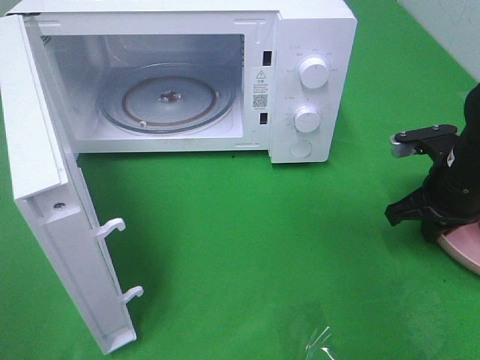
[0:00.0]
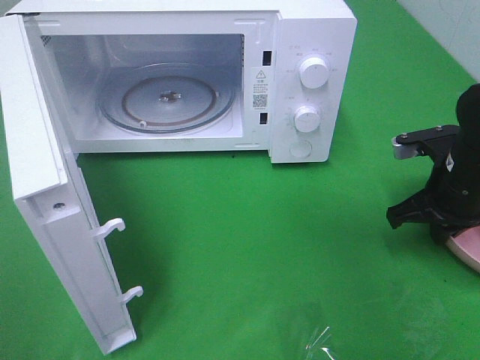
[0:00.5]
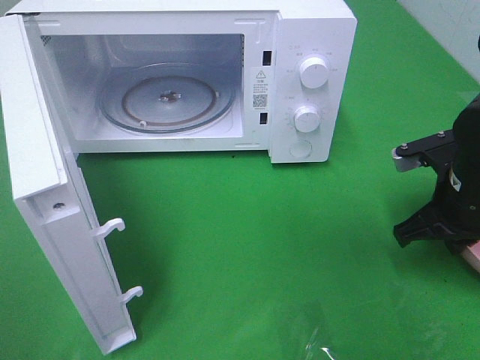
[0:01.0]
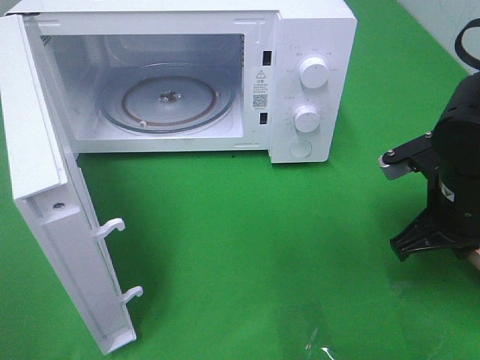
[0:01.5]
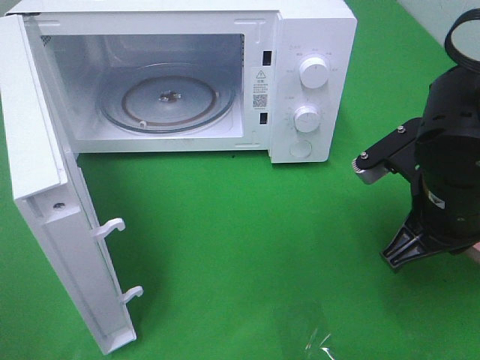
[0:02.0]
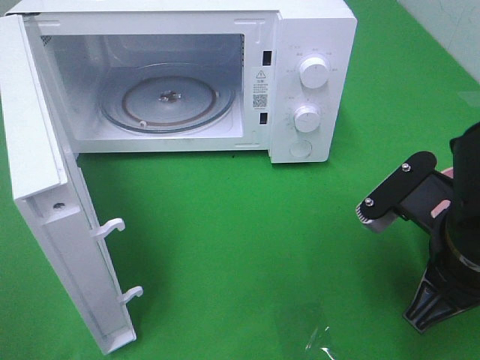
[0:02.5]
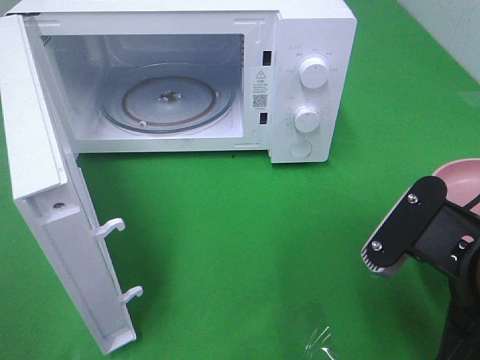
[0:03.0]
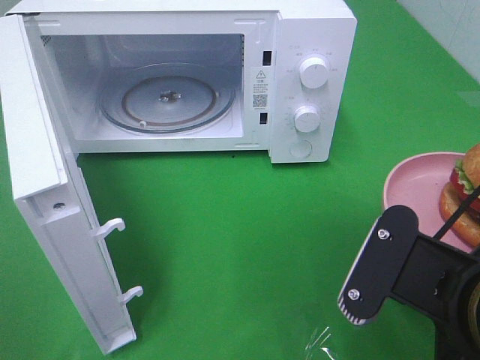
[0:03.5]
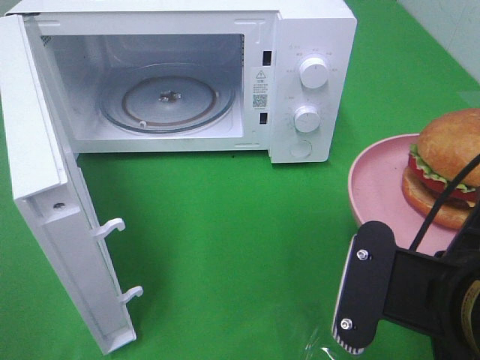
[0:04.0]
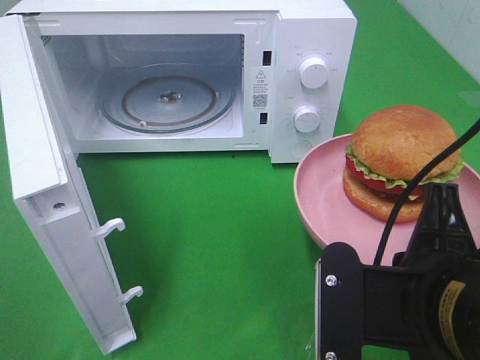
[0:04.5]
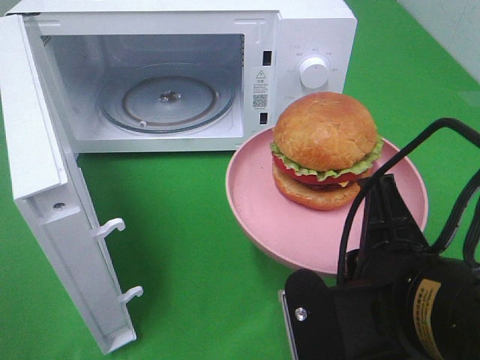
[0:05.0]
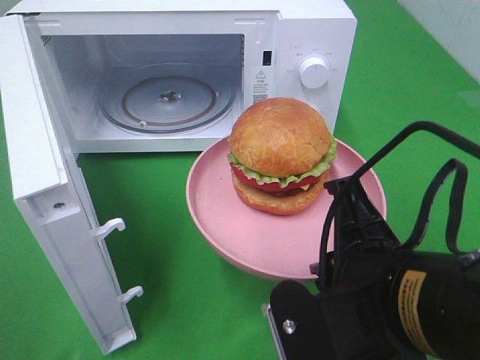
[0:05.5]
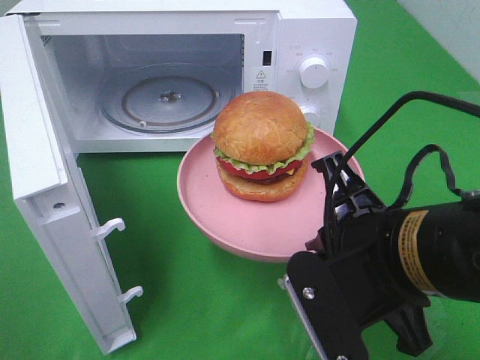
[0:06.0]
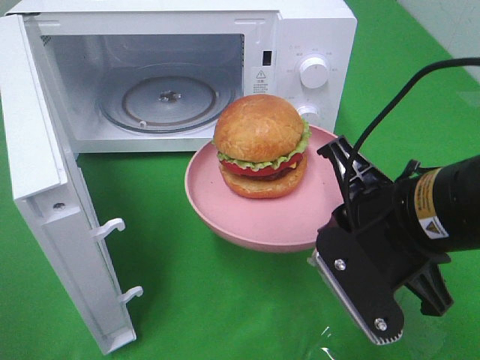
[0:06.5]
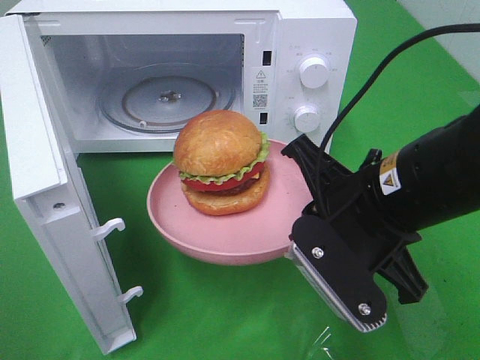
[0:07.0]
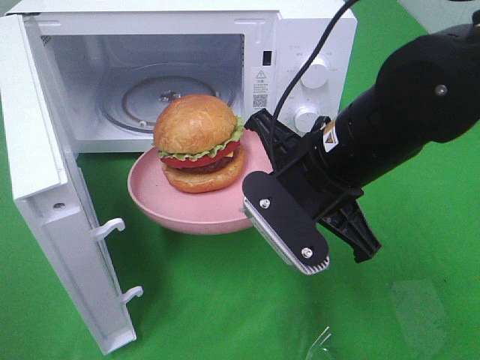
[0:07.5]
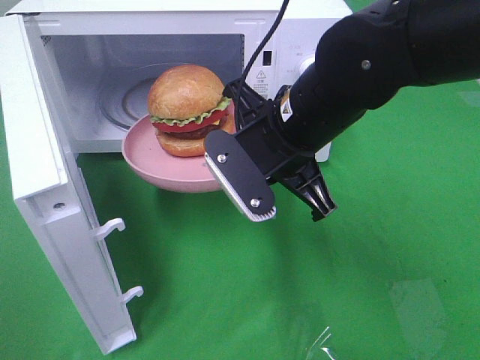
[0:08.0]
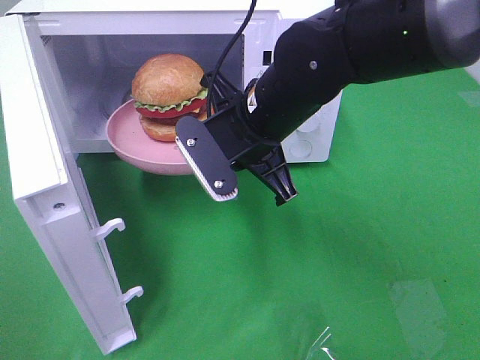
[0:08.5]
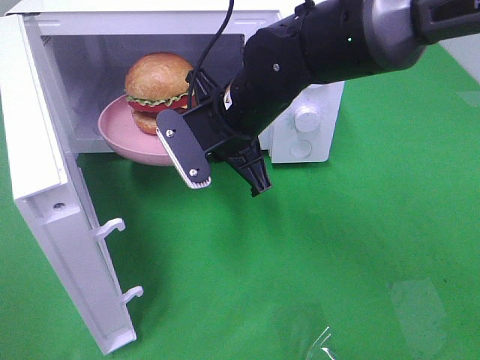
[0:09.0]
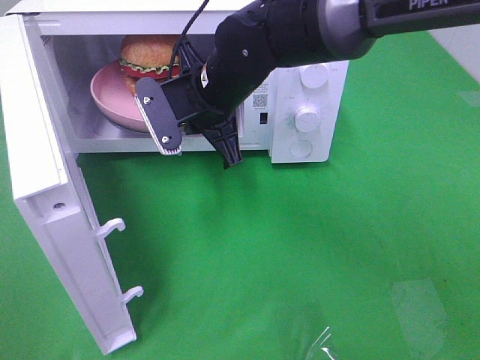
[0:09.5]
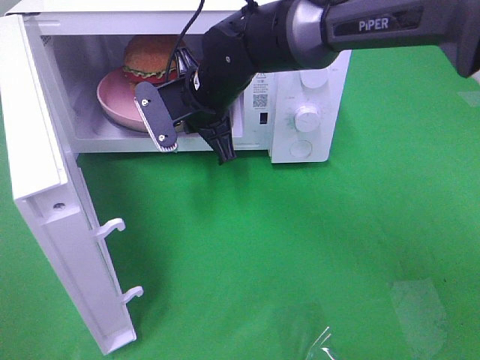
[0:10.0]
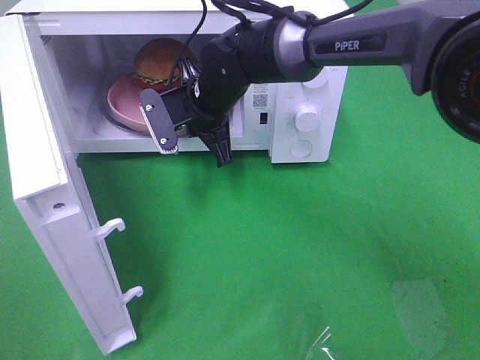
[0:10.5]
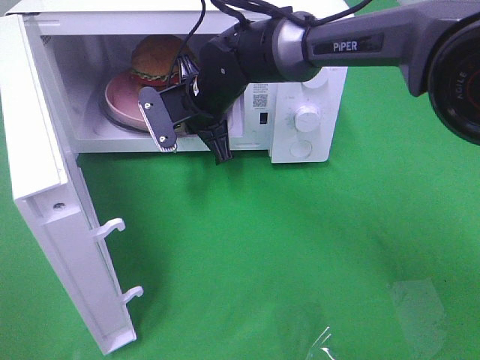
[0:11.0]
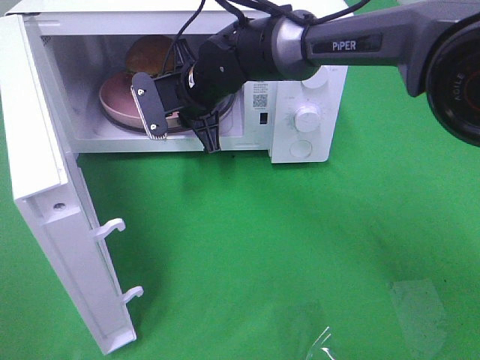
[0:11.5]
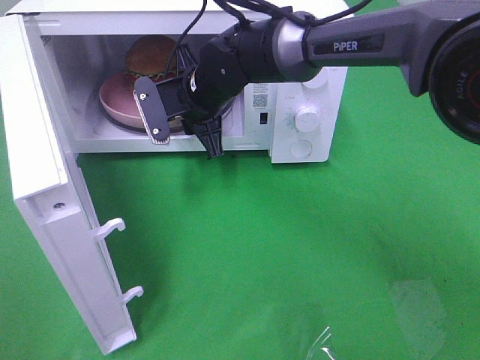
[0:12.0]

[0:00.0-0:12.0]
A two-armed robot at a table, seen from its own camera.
Task of the whole recording: Heat the burger.
0.0 to 2.0 s: The right gripper moves backward, to the left and upward, about 15 cm.
2.0 to 4.0 s: The right gripper heads backward, covering about 15 cm.
4.0 to 6.0 s: The right gripper changes place by some 5 cm.
6.0 to 8.0 s: The right gripper heads forward and to the left, covering approximately 15 cm.
8.0 to 10.0 s: The right gripper heads forward and to the left, covering approximately 15 cm.
10.0 to 12.0 s: The grippers make only small movements.

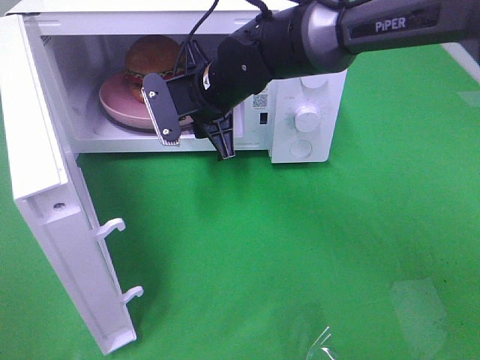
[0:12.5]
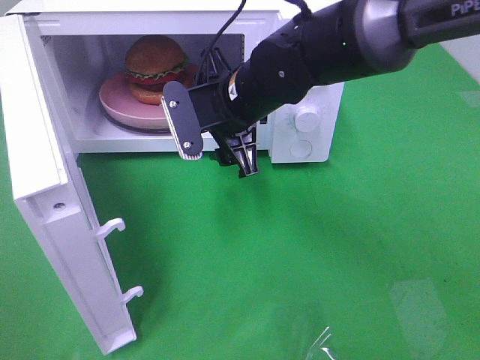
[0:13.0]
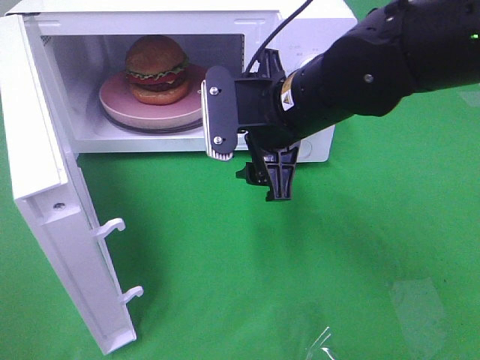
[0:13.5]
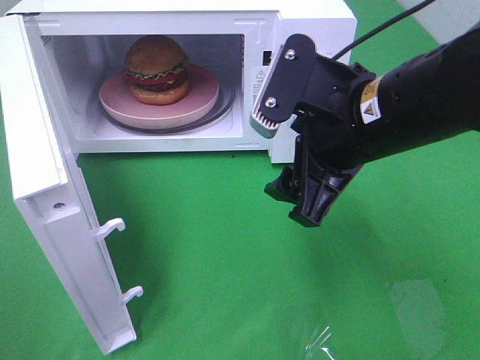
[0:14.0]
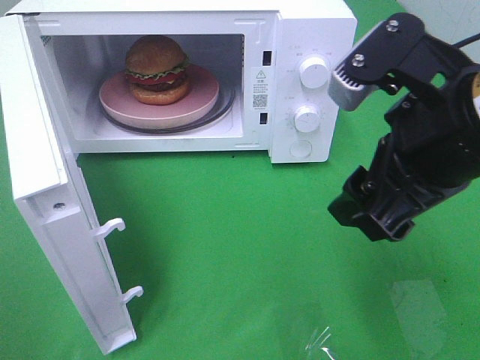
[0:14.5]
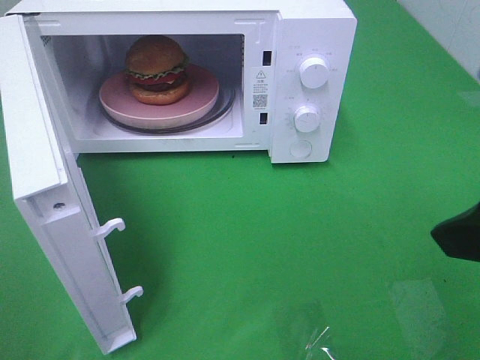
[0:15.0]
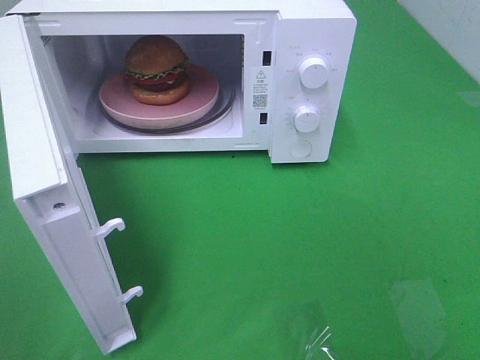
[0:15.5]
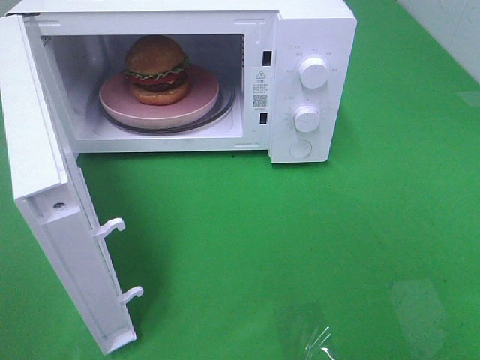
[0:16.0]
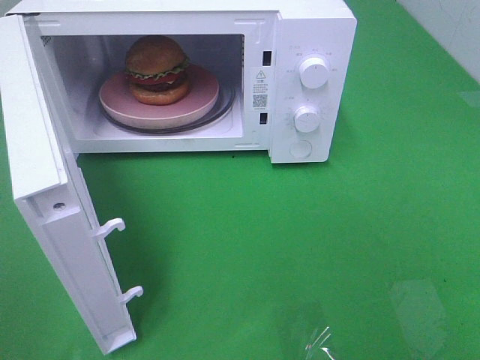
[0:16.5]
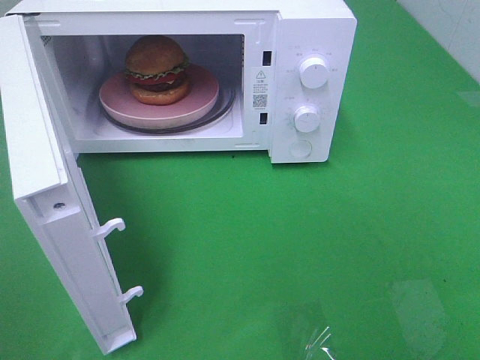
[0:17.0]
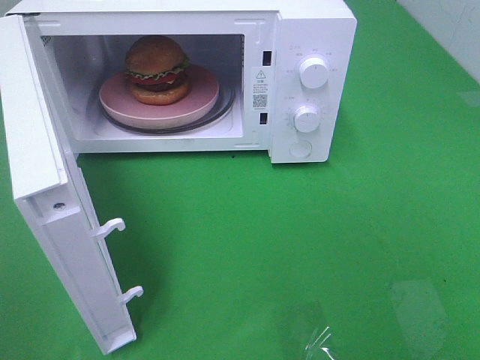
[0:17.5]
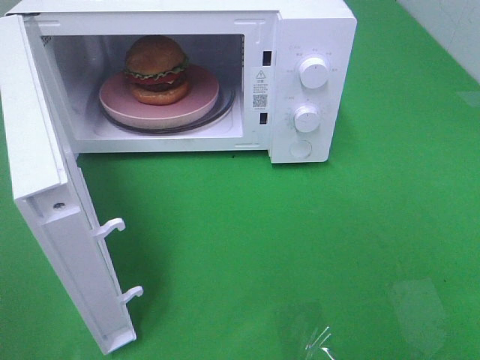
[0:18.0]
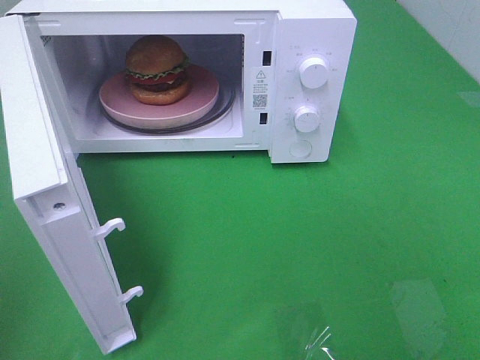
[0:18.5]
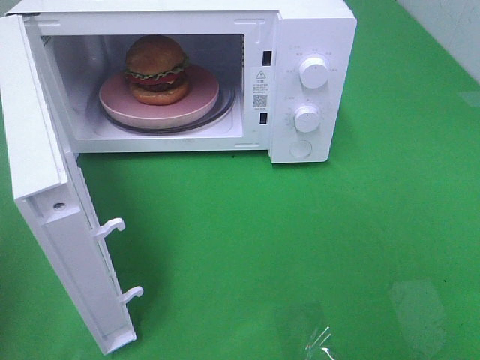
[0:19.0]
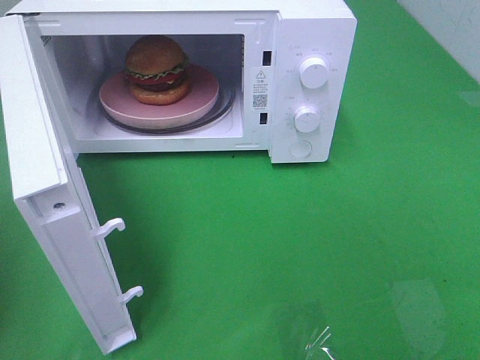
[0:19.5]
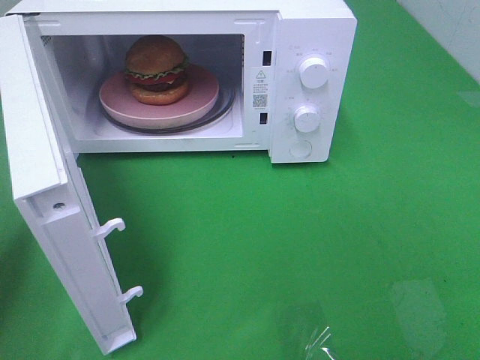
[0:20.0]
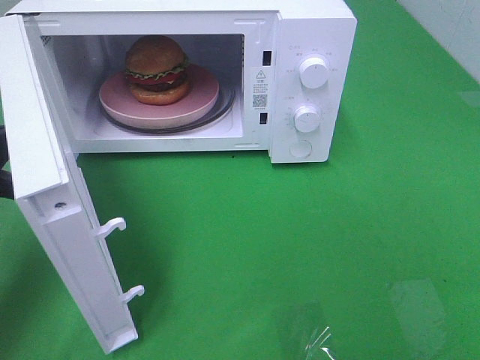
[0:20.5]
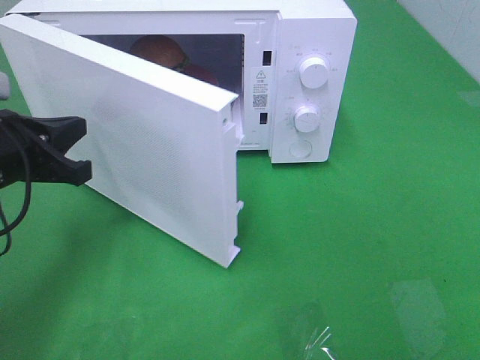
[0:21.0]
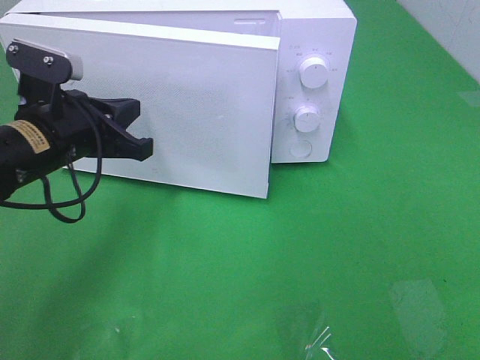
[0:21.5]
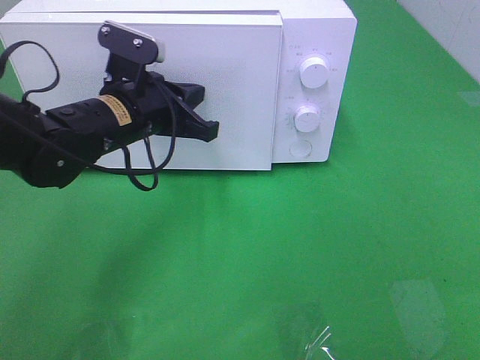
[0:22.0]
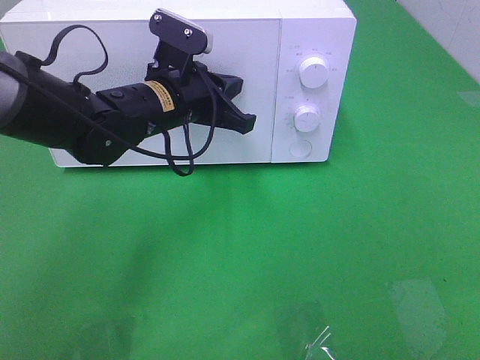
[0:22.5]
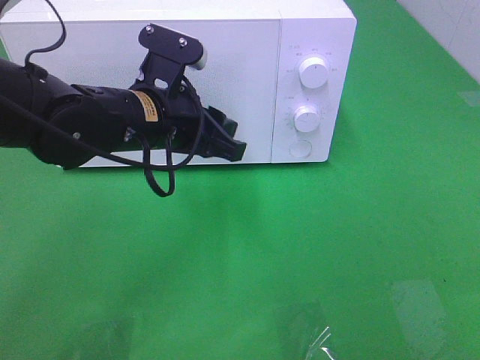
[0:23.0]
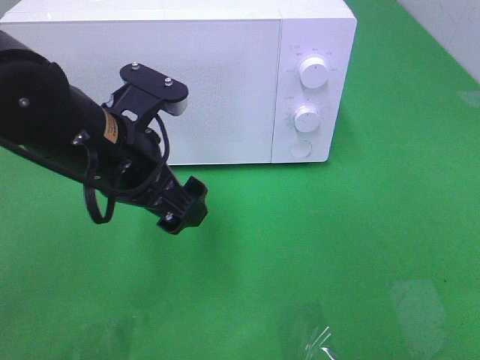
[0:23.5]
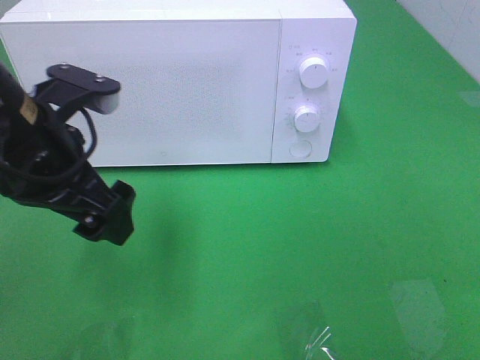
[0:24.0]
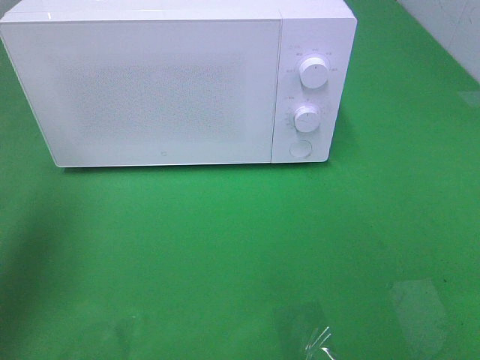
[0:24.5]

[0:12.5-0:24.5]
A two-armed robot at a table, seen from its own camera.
Task of the whole recording: Heat the burger.
Step, 13.5 to 23.0 s: Left hand: close the microwave door.
12.5 to 14.5 s: The right gripper travels backward, to the right and upward by about 30 cm.
14.5 to 16.5 s: The right gripper heads backward and to the right, covering roughly 25 cm.
18.5 to 20.5 s: The left gripper goes some 25 cm forward and downward.
20.5 to 22.5 s: The left gripper travels to the right and forward by about 25 cm.
22.5 to 24.5 s: The left gripper is displaced to the left, backward and upward by roughly 30 cm, and opens.

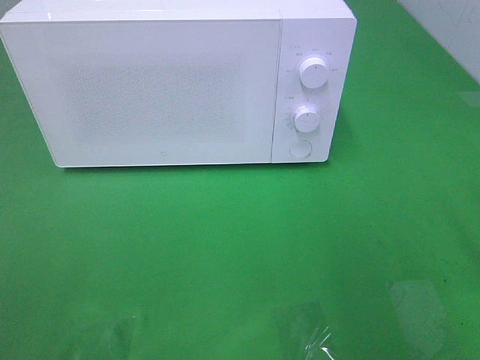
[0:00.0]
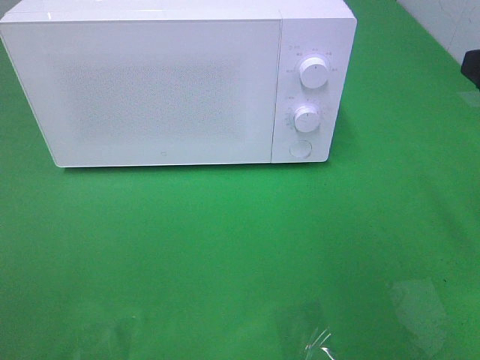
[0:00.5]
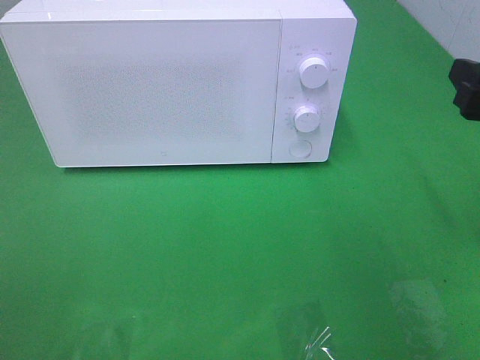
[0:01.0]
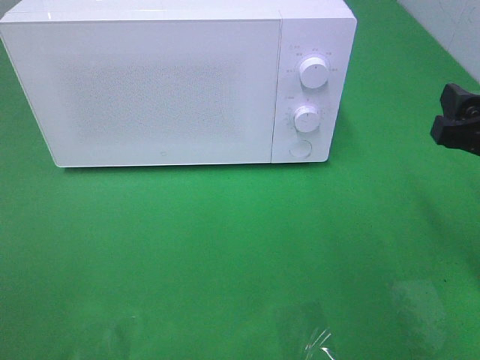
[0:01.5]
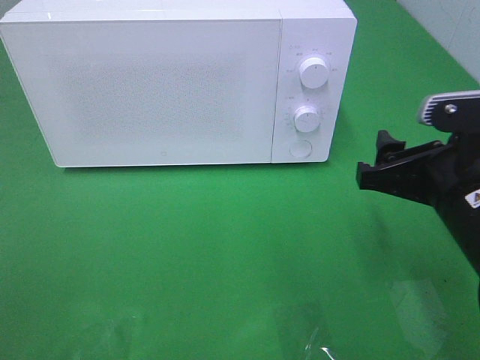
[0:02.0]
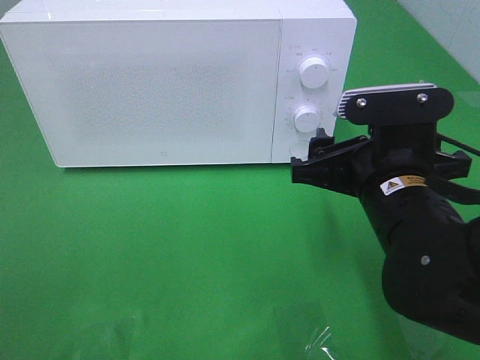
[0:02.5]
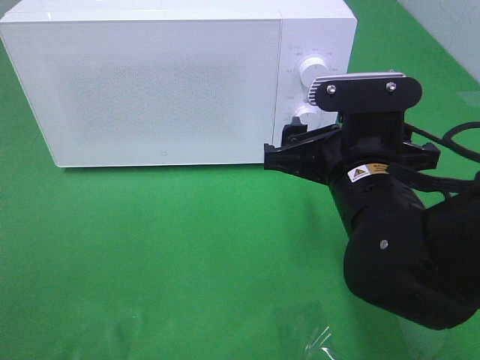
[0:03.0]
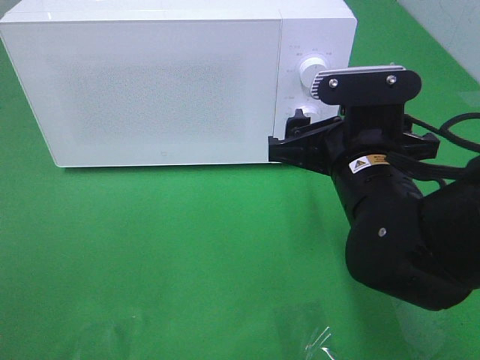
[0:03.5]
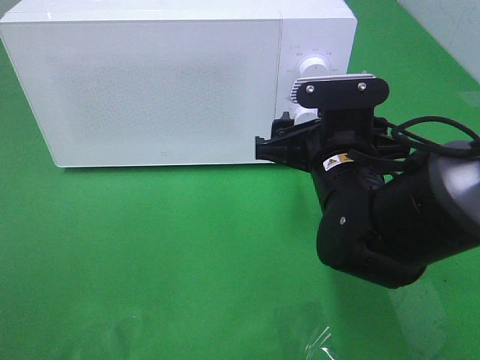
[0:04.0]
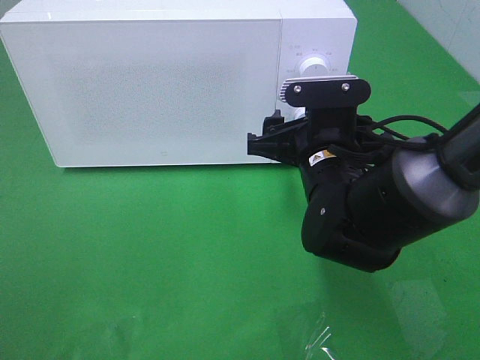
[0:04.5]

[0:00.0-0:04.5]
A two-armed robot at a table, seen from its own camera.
Task of the whole recording: Heat the burger.
0.0 to 2.0 s: The right gripper goes approximately 15 cm downward and to the left.
2.0 to 4.5 s: The right gripper shifts approximately 15 cm to the left and forward.
